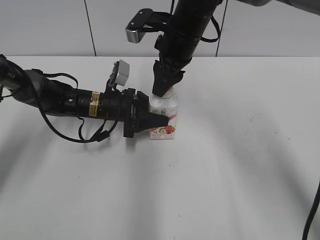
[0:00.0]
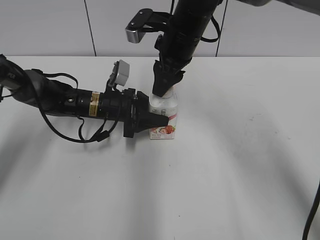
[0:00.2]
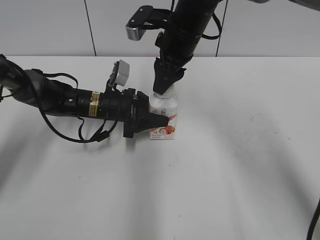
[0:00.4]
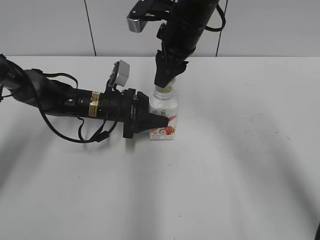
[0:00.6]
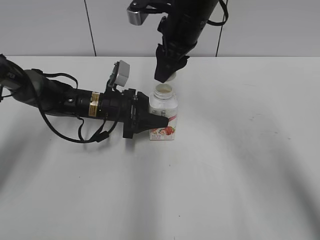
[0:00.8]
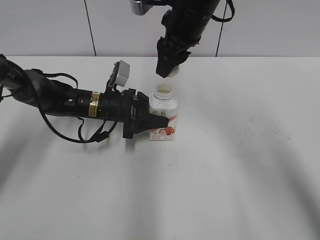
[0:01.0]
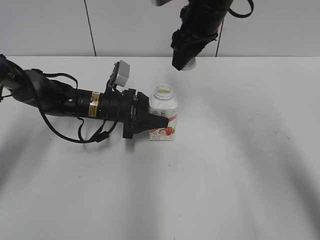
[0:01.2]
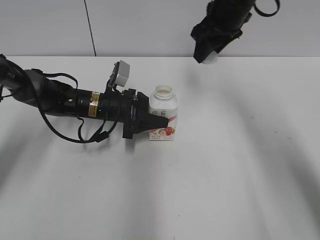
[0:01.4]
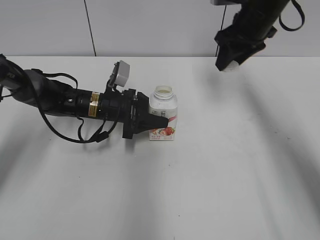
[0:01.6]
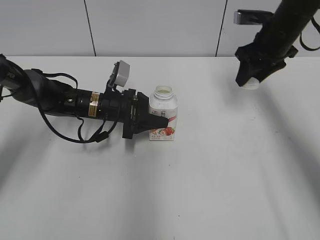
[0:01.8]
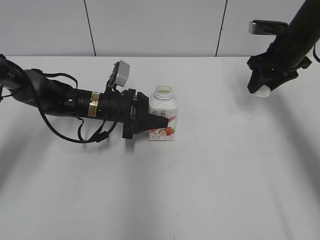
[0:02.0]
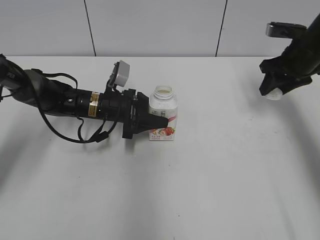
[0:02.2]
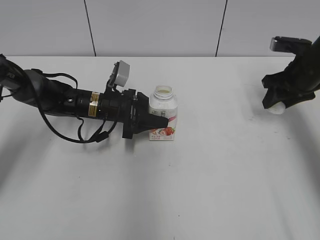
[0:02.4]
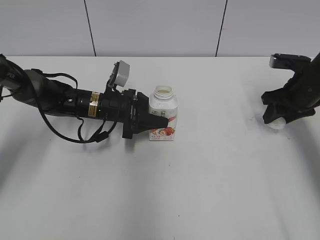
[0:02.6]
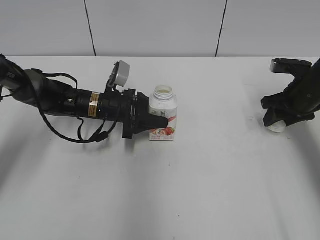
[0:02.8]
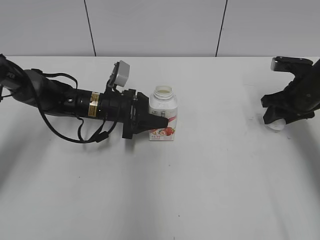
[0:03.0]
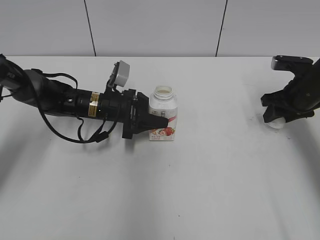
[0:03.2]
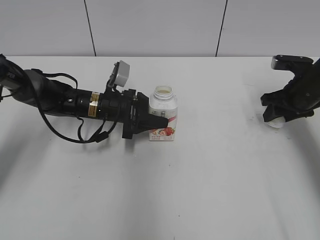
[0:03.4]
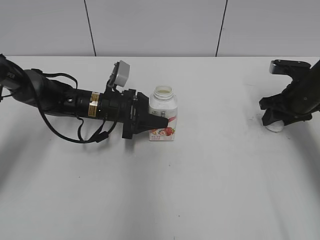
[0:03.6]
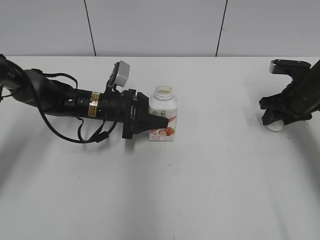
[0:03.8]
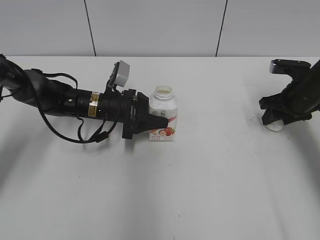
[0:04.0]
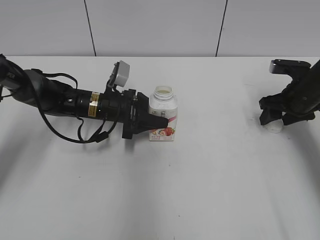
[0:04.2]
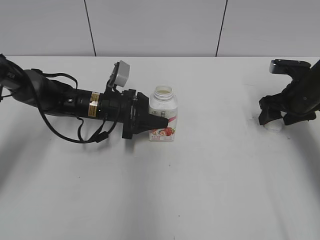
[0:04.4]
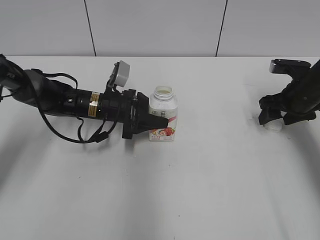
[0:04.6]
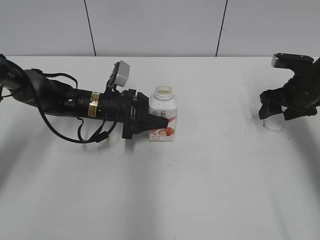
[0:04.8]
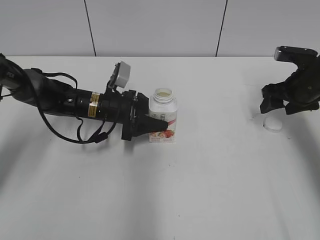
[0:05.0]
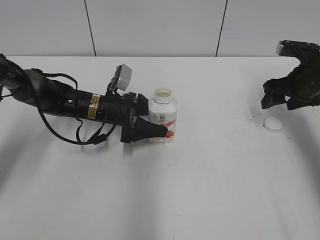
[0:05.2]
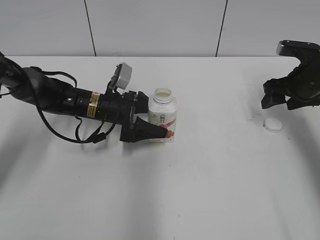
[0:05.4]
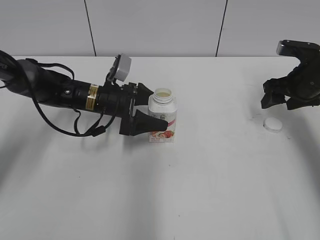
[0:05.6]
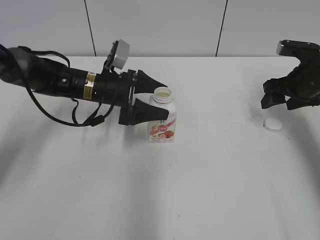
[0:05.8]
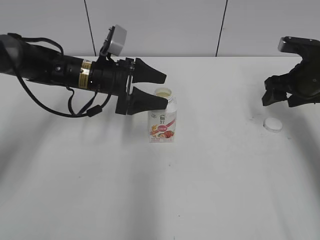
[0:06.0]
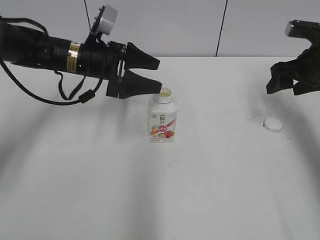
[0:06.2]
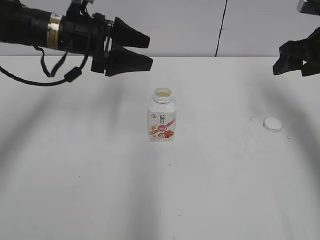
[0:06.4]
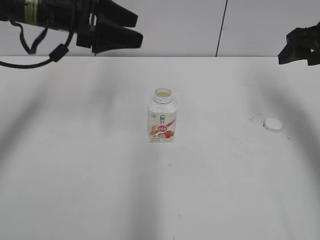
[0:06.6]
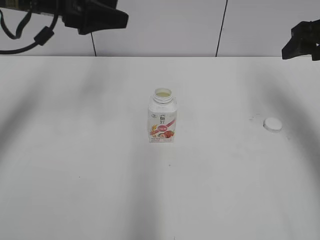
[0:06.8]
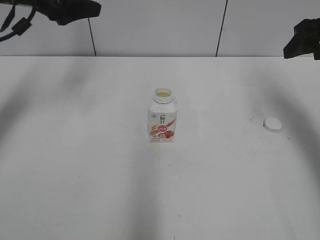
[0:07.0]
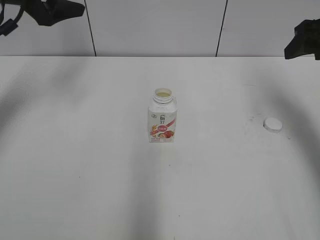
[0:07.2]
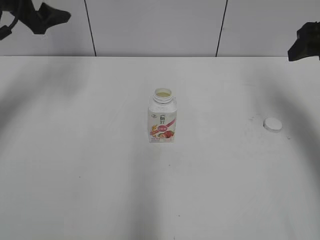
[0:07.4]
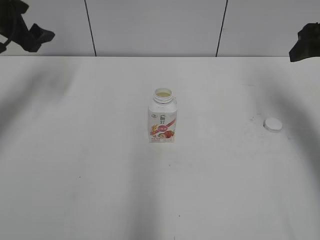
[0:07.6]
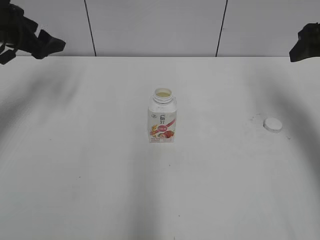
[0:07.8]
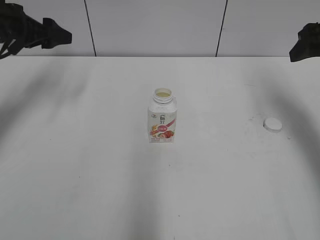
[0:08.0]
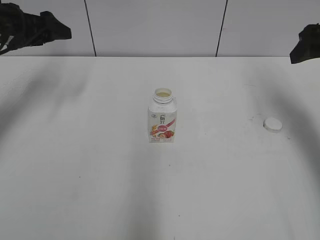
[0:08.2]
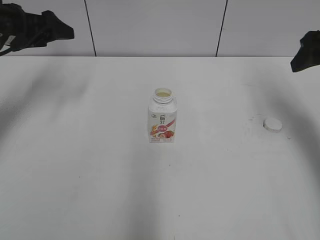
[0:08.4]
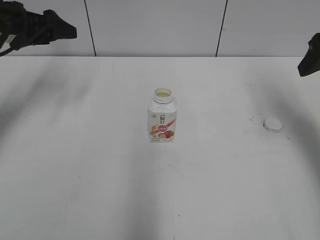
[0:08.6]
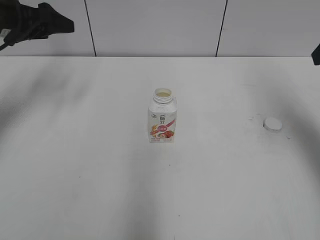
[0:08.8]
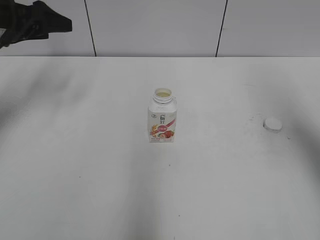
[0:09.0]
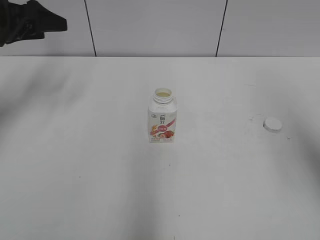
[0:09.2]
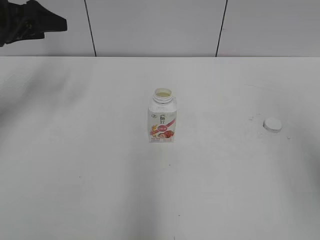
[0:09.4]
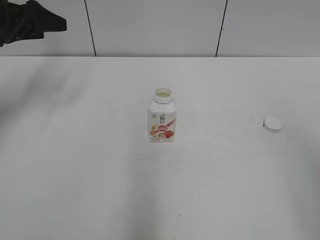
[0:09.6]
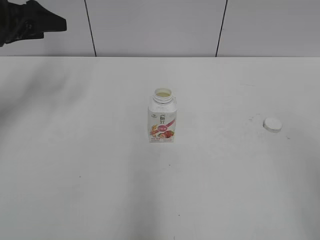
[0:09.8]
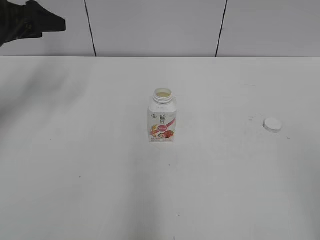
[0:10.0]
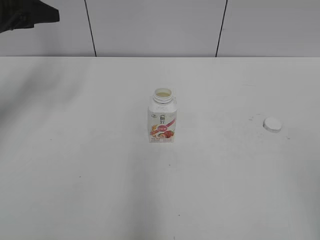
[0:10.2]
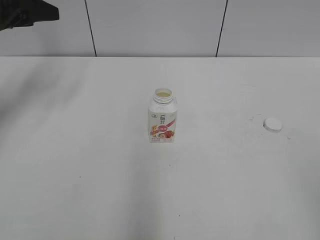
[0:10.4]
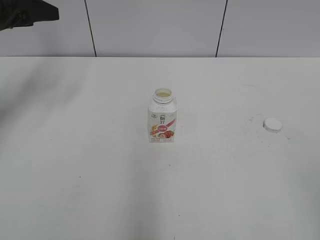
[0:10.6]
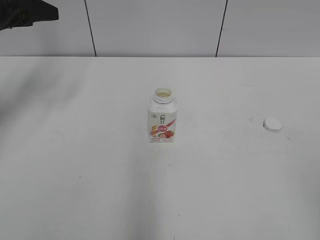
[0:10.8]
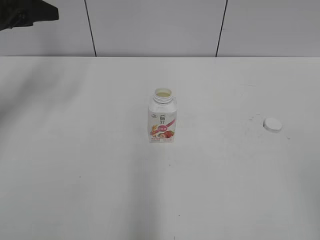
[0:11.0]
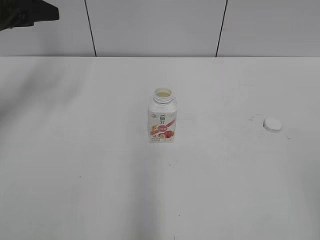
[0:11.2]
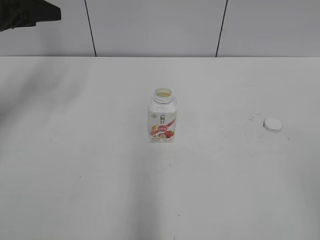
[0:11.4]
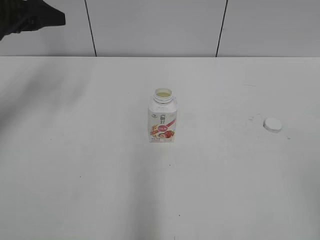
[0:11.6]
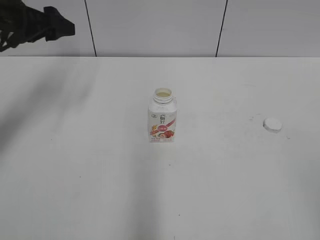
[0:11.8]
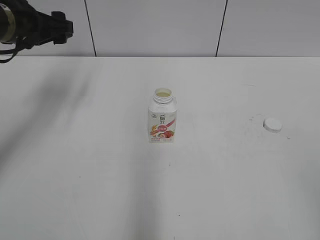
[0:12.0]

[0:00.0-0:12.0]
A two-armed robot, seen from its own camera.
Step, 0:00.8 to 0:04.6: Place the bottle cap on the right.
Step, 0:04.8 to 0:05.6: Place the Yili Changqing with the left hand.
0:00.0 to 0:01.6: The right gripper goes approximately 15 cm to the right.
0:01.6 to 0:03.0: The right gripper travels downward, to the right and backward by roughly 20 cm.
0:03.0 to 0:04.4: The right gripper opens up.
0:04.4 to 0:06.0: The left gripper moves upward, some 5 cm, and opens its fingers.
0:06.0 to 0:07.6: The left gripper travels to the left and upward by roughly 20 cm, while the right gripper moves upward, some 10 cm.
0:07.6 to 0:09.0: The right gripper goes approximately 10 cm backward and upward.
0:09.0 to 0:10.4: The right gripper shifts about 25 cm backward.
0:10.4 to 0:12.0: The left gripper travels to the right by approximately 5 cm.

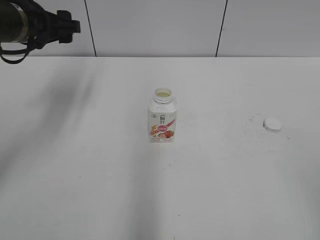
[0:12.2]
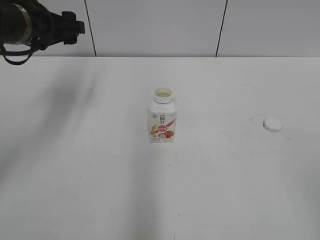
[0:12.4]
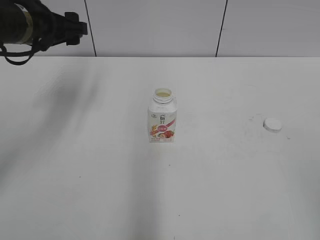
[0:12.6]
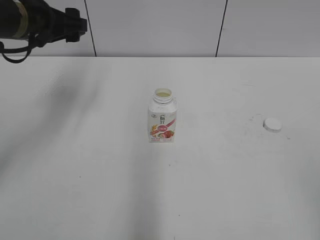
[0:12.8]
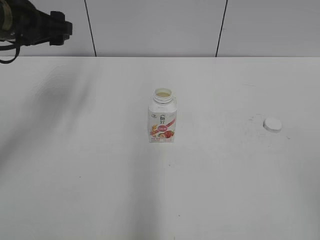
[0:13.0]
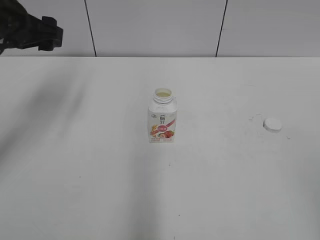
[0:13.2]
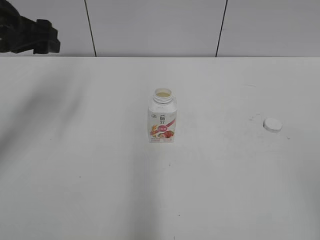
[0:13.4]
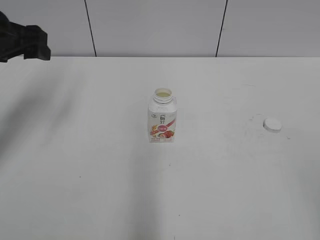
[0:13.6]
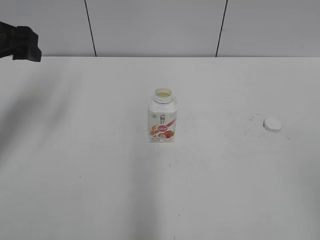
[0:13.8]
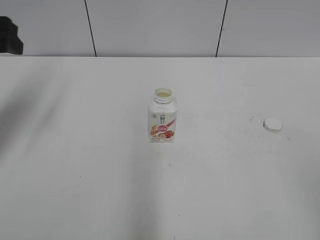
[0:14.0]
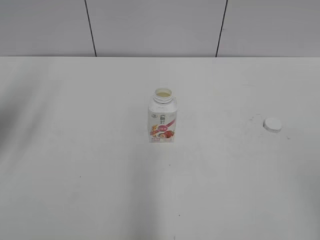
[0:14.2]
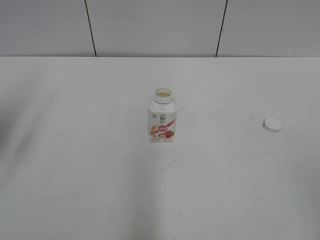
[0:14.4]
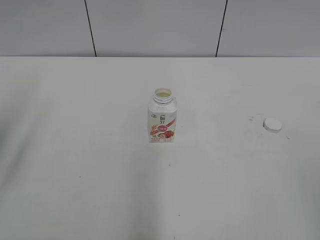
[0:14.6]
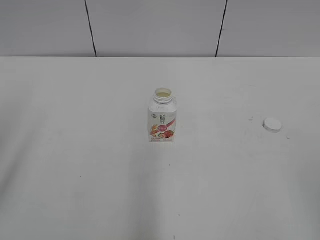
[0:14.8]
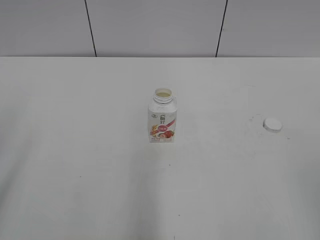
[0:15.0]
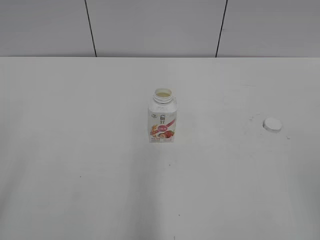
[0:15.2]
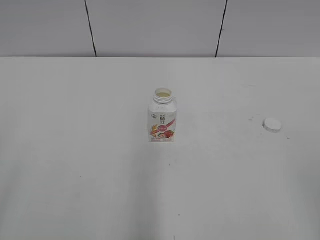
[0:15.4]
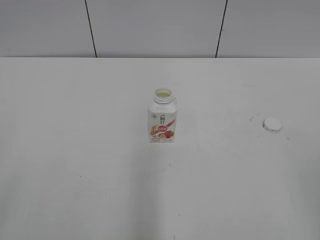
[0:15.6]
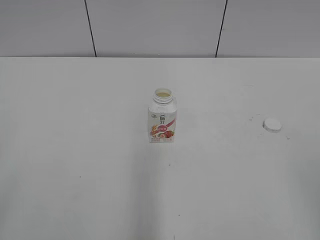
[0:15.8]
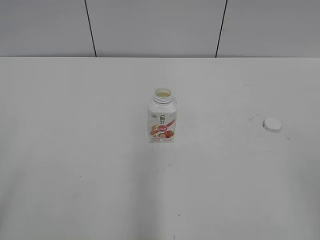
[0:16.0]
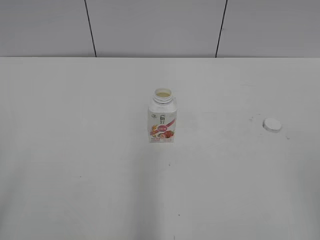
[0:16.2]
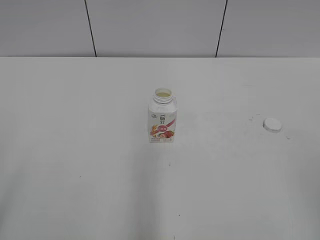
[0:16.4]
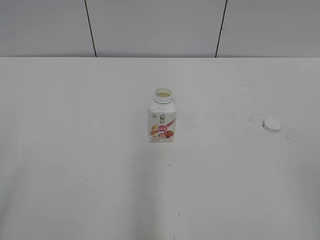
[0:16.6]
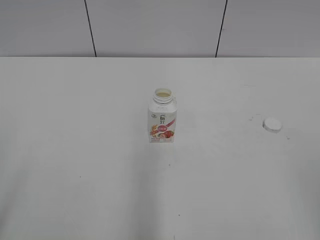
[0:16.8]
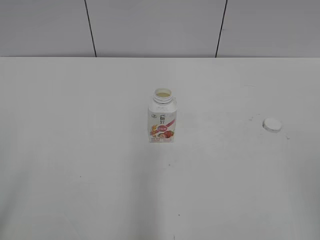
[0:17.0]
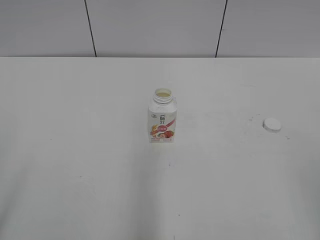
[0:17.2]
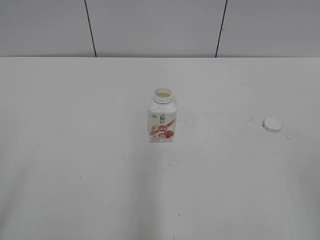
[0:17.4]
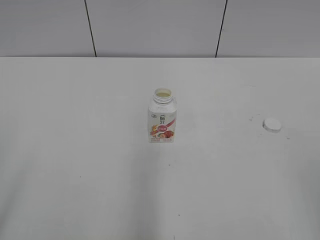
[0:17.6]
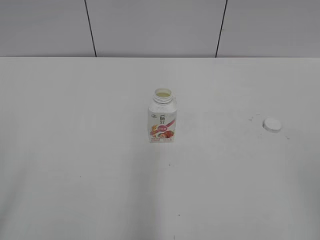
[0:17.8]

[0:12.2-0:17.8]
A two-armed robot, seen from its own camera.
0:12.2 to 0:13.6: The left gripper changes place by approximately 5 cm.
0:13.6 to 0:15.0: The left gripper travels backward by some 25 cm.
0:16.4 to 0:17.8: Both grippers stay about where they are.
